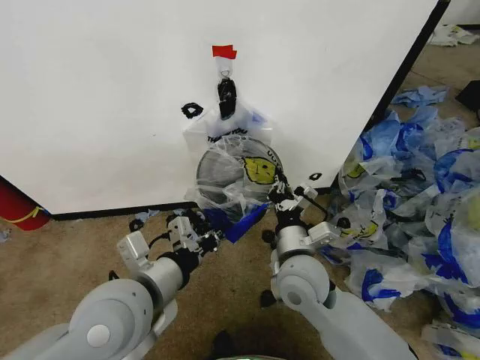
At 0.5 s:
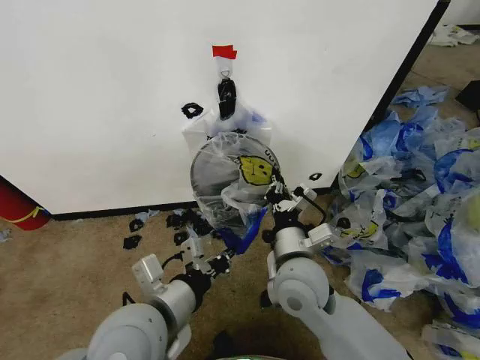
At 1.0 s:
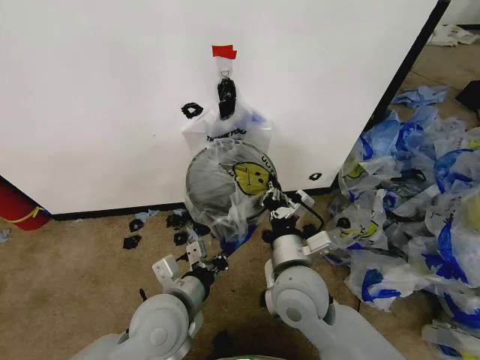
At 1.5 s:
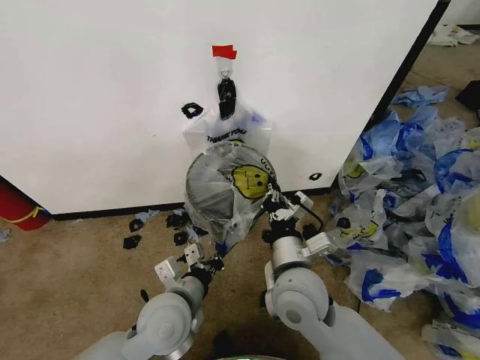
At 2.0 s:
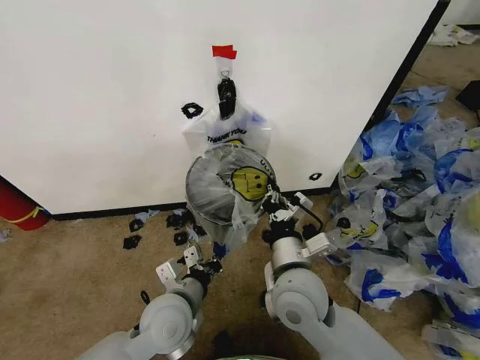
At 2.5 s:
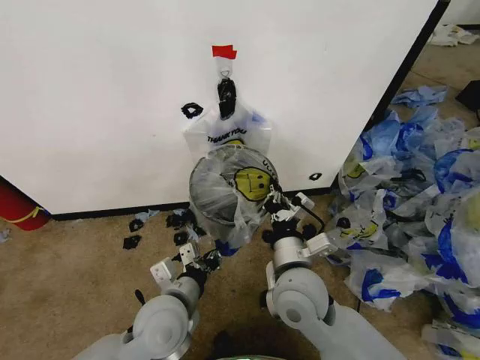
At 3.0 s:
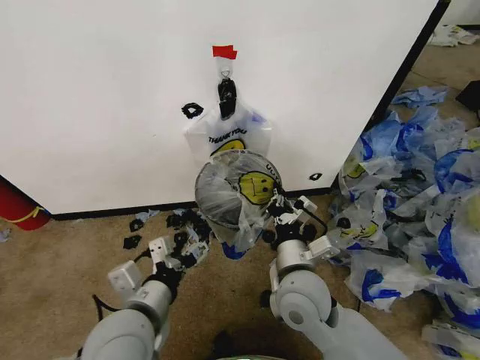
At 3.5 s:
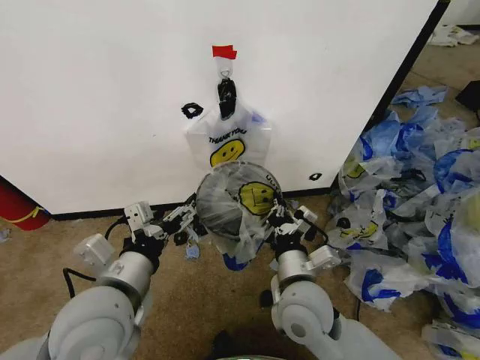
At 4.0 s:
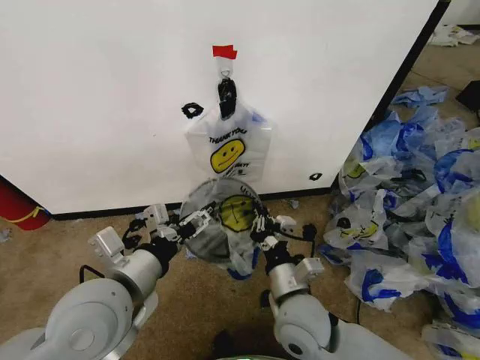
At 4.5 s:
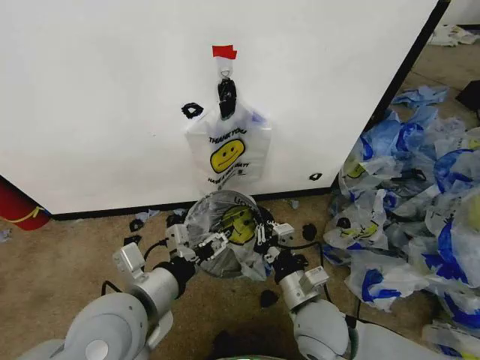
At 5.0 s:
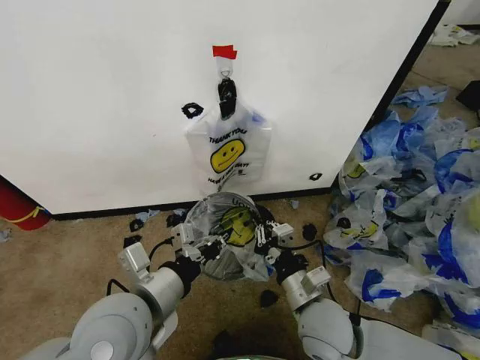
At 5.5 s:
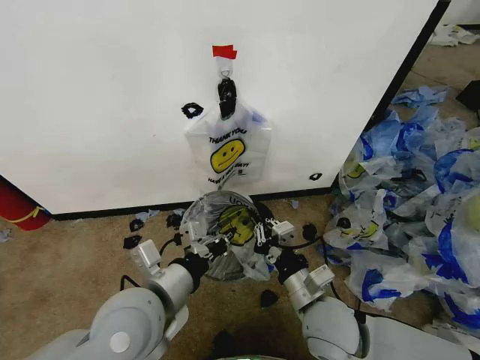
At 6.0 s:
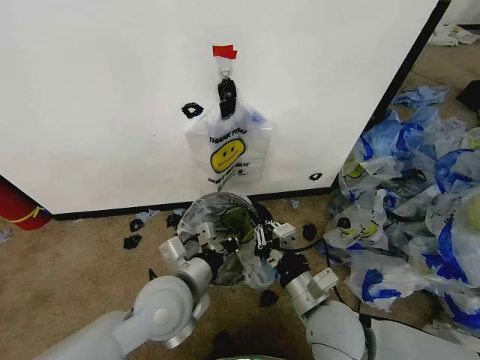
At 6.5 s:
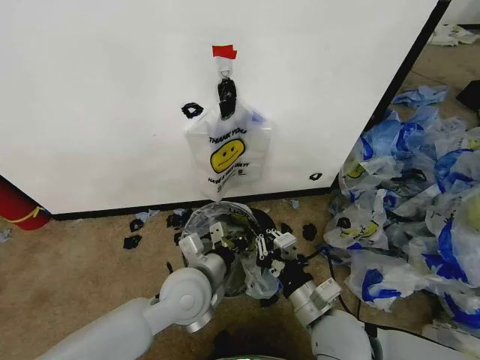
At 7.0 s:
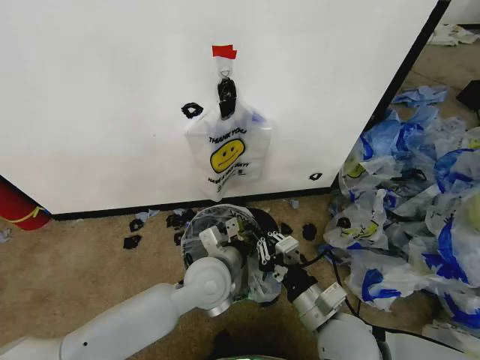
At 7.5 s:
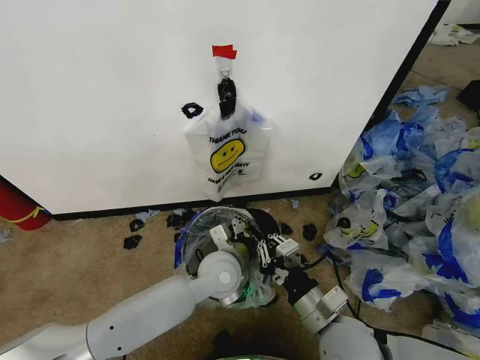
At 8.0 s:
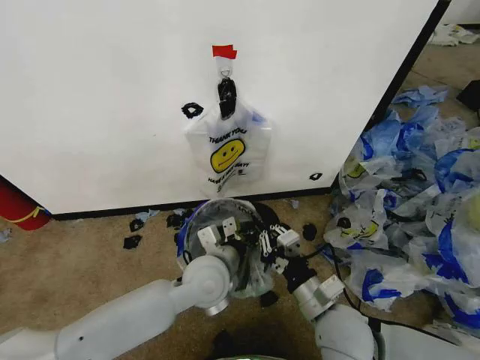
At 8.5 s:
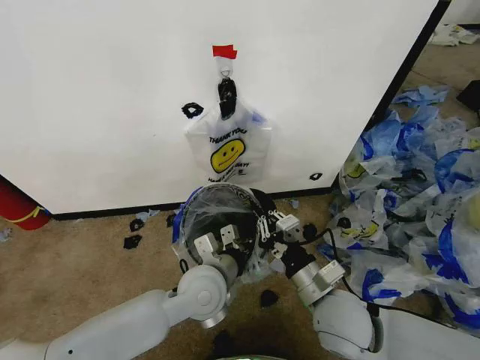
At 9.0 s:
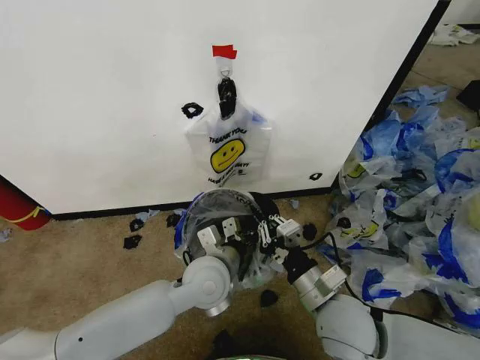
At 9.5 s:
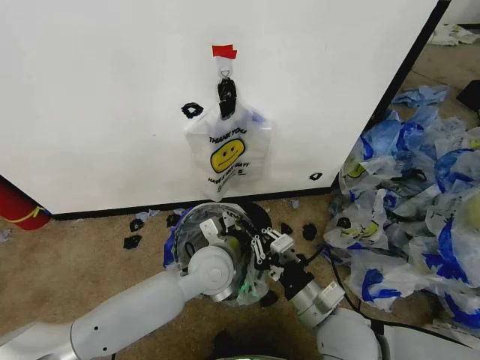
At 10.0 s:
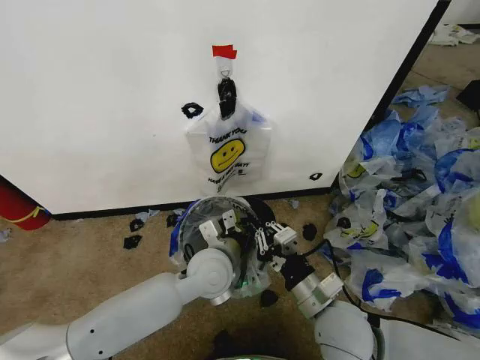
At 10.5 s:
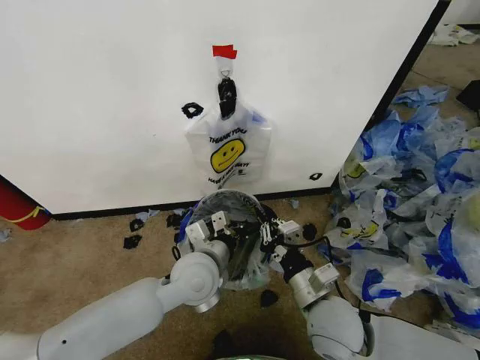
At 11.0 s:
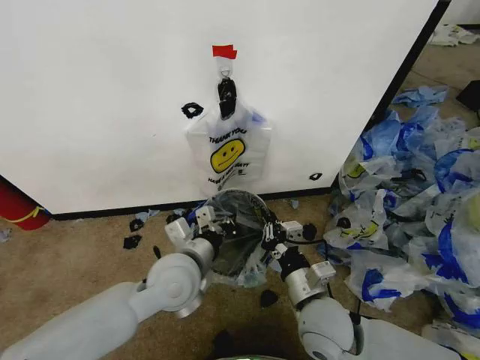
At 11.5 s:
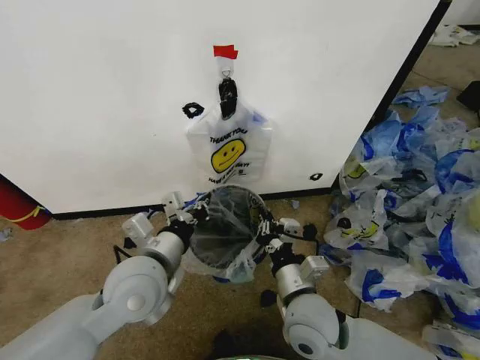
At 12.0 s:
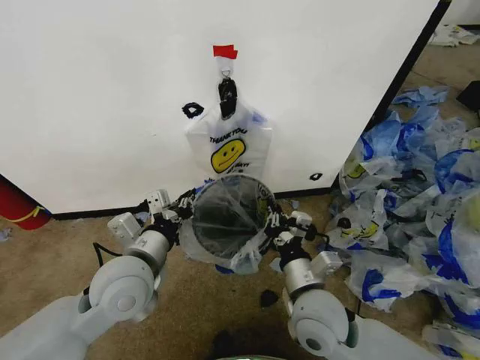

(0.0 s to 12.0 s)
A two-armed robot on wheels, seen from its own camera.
Task of the whole recording: Pick up the garbage bag from the wall and place it over the trash bin.
0.0 s - 2.0 s: The left gripper is displaced downward by roughly 15 cm.
2.0 s - 4.0 s: The right gripper travels downward by roughly 5 cm. The left gripper moves upward and to the left, approximately 15 cm, and opens up.
4.0 s - 6.0 s: The left gripper is displaced downward and to the right by roughly 10 cm, and closes its fingers.
6.0 s - 8.0 s: The left gripper is displaced to the right and forward by approximately 10 cm.
8.0 s - 10.0 s: The grippers make only small movements.
10.0 s - 12.0 s: The left gripper heads to the left, upward and backward, covering roughly 15 cm.

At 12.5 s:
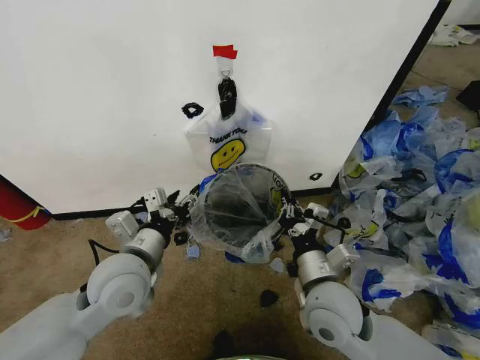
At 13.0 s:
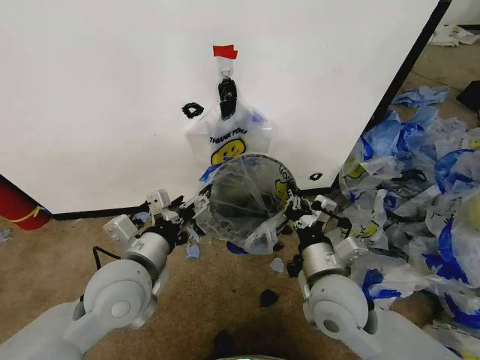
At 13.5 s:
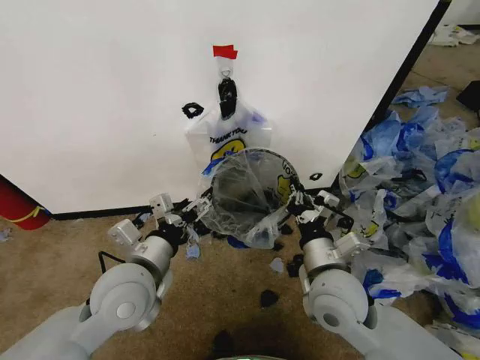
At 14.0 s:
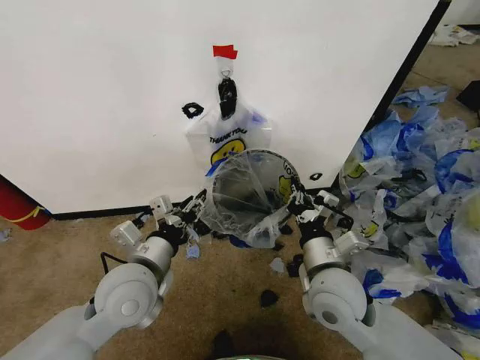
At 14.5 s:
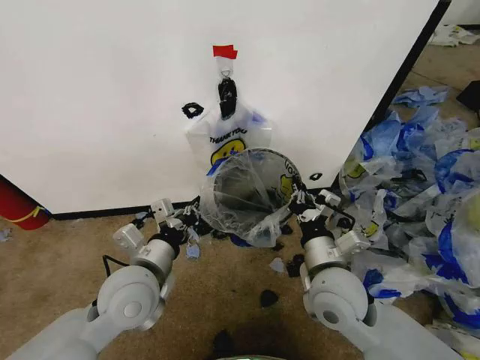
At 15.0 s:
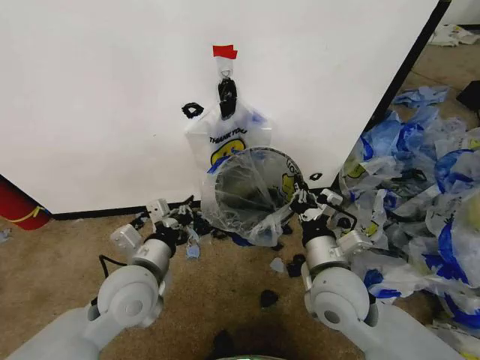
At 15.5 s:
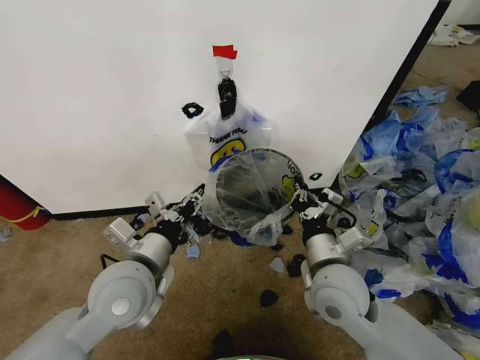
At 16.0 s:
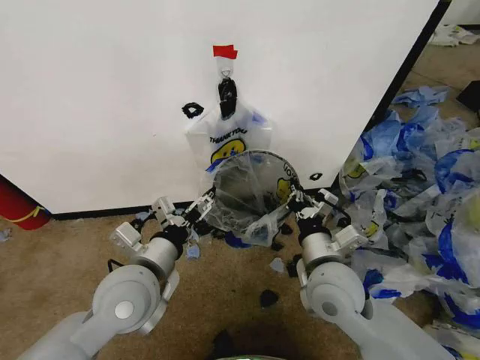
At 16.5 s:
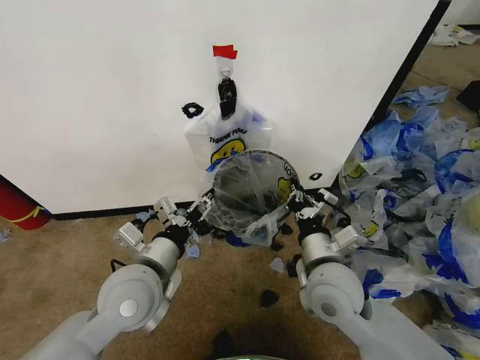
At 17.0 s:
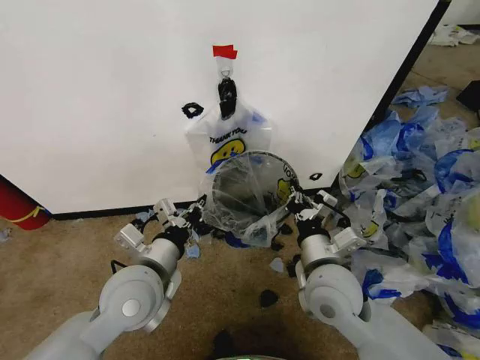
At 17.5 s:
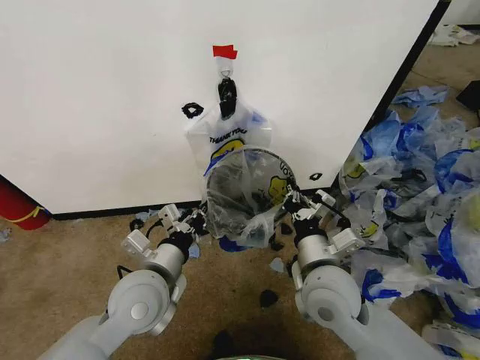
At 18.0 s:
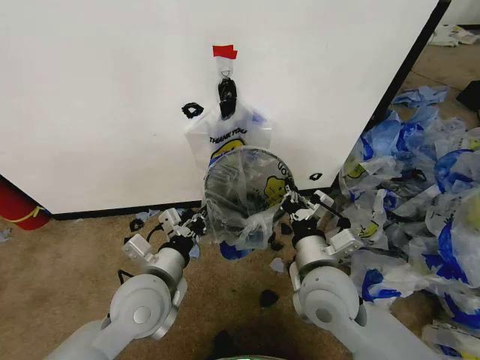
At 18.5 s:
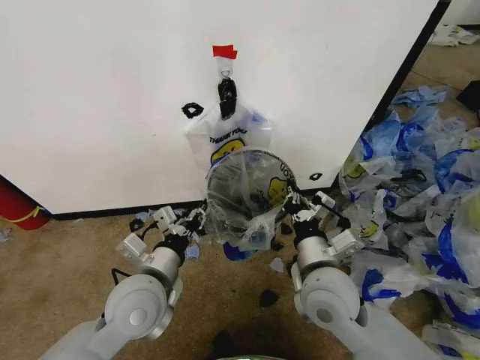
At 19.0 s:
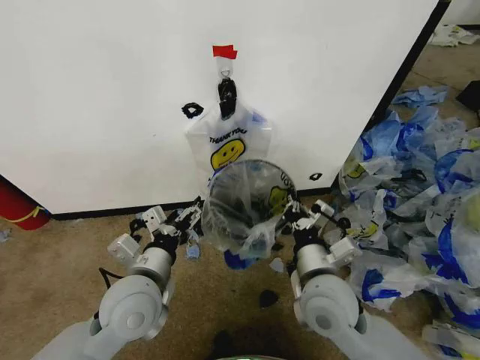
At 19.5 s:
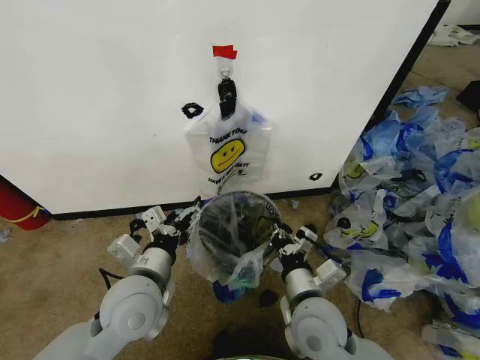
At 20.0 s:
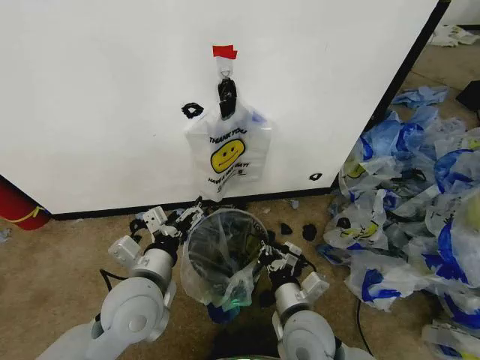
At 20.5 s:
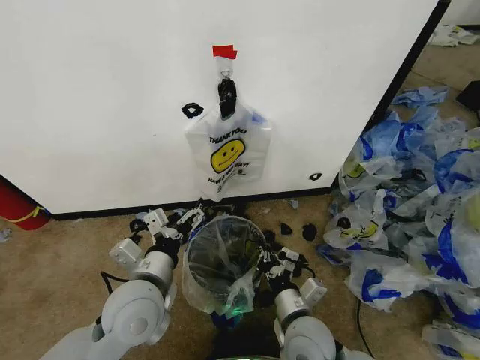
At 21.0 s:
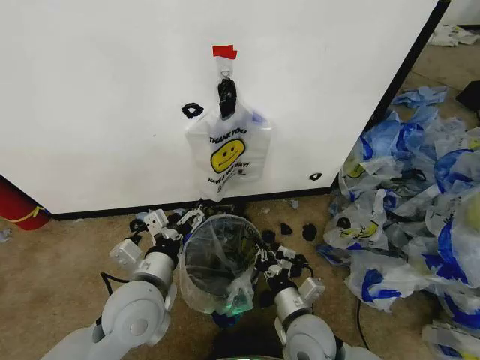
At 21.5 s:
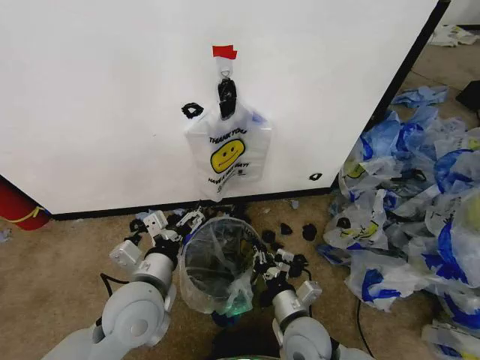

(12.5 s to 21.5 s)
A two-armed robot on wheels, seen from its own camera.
Task of the whole recording: Pick up the garbage bag from the wall and place it over the trash bin.
12.5 s - 14.5 s: The left gripper closes up.
14.5 s - 17.0 s: The left gripper opens, then closes once more.
17.0 s - 19.5 s: The left gripper opens its fingers. Meanwhile the right gripper moves roughly 5 cm.
19.5 s - 21.5 s: The right gripper is displaced downward by some 10 cm.

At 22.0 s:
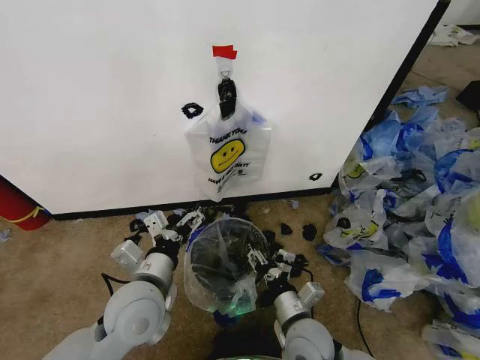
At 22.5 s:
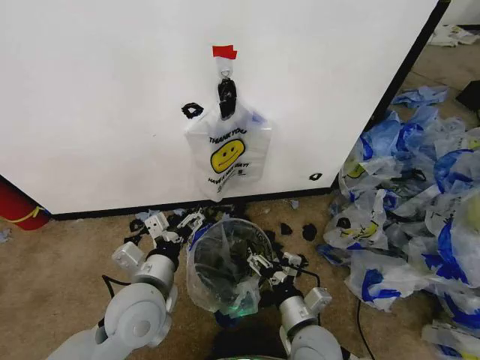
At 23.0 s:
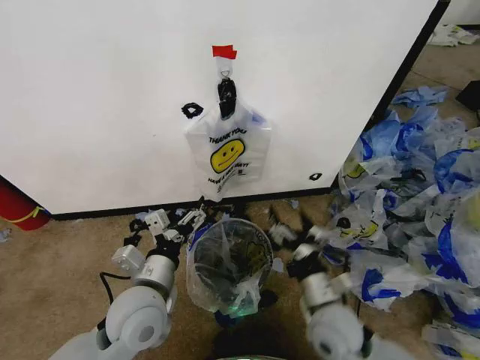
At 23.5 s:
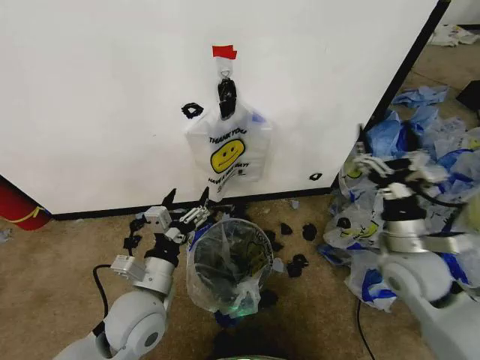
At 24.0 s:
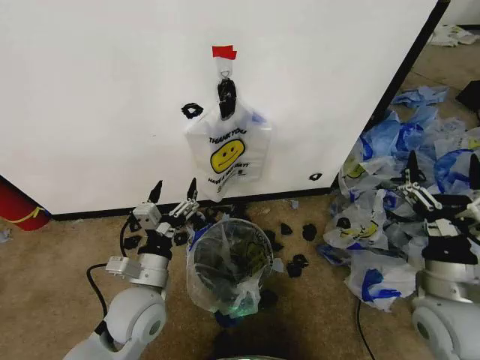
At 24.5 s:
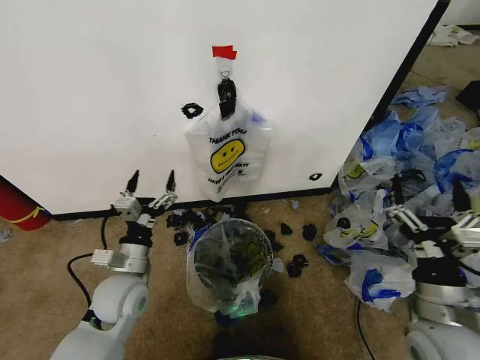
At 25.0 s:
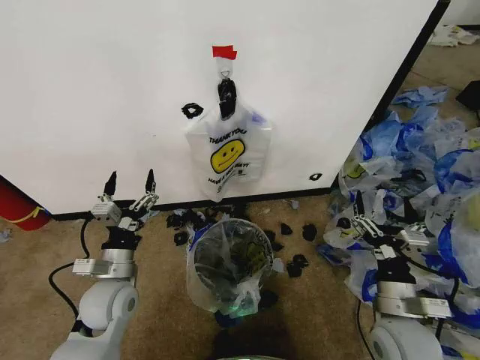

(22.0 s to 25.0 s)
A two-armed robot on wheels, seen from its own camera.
Task of the whole recording: Pick up the garbage bag from the wall and place it over the trash bin.
22.0 s - 23.5 s: The right gripper heads to the right, upward and forward, covering about 25 cm.
23.5 s - 25.0 s: The right gripper goes some 10 cm backward and downward; the left gripper is displaced to the left by about 10 cm.

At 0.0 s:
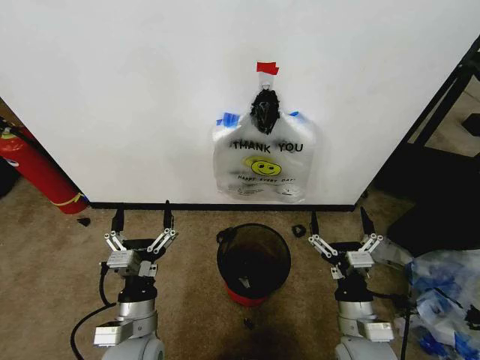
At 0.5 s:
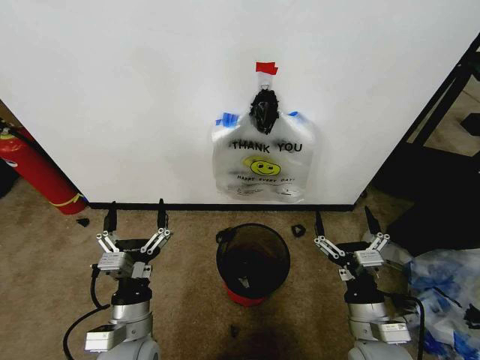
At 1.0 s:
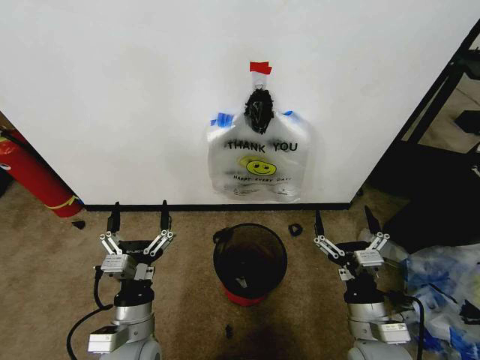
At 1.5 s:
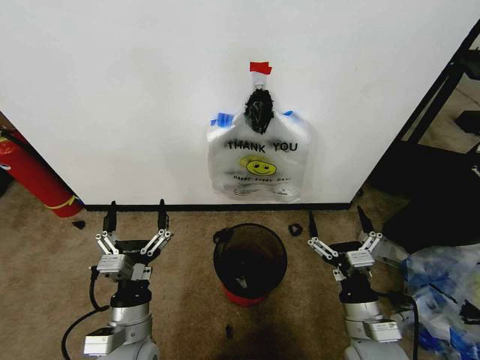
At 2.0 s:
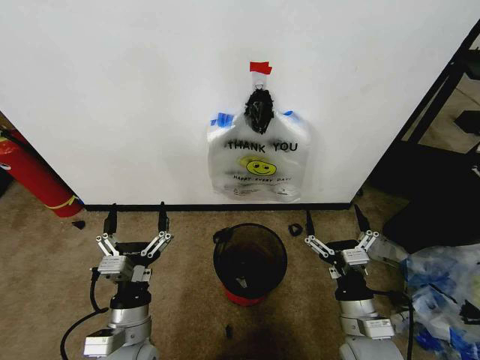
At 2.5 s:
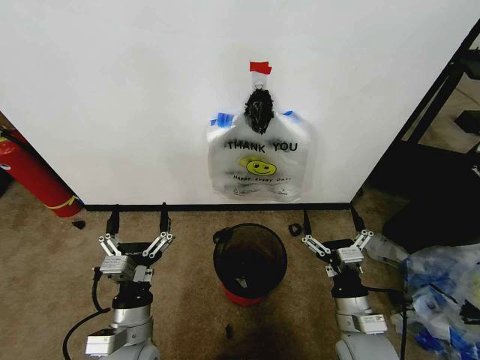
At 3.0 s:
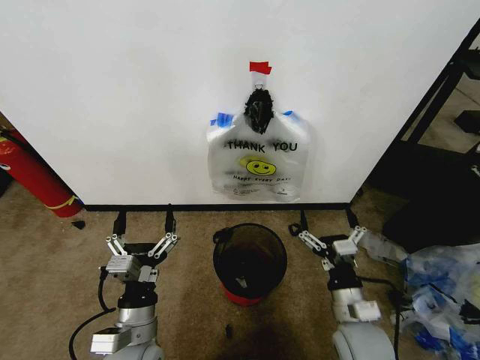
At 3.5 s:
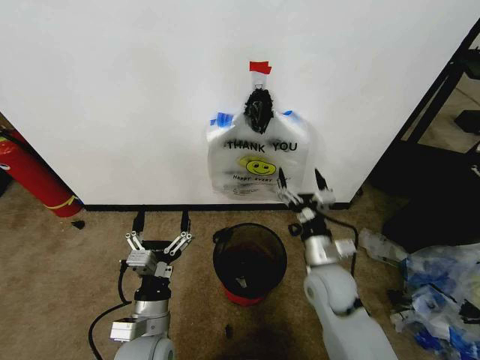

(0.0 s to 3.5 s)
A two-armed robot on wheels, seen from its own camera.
Task of the whole recording: Pick up the garbage bag from the wall and place it over the trash bin.
2.0 s - 3.5 s: The right gripper moves forward, roughly 15 cm.
